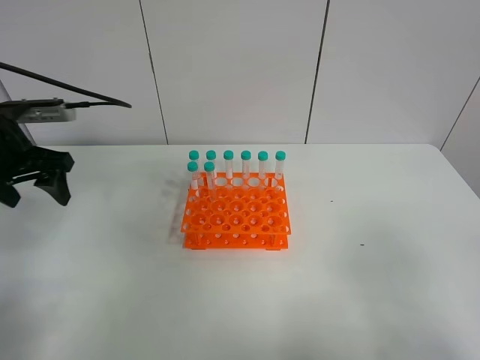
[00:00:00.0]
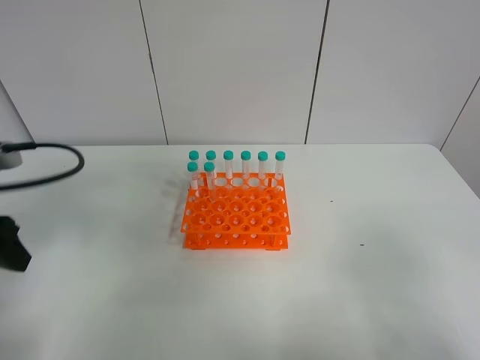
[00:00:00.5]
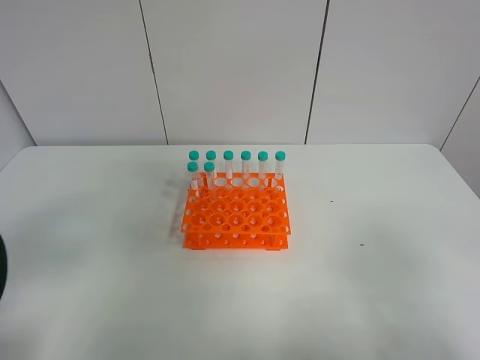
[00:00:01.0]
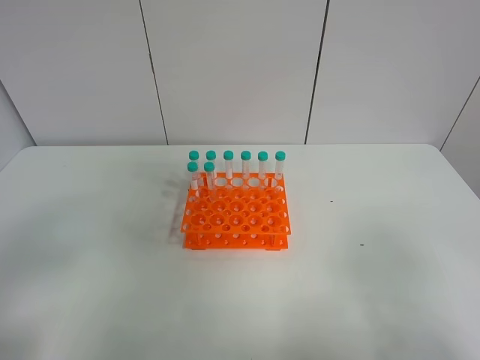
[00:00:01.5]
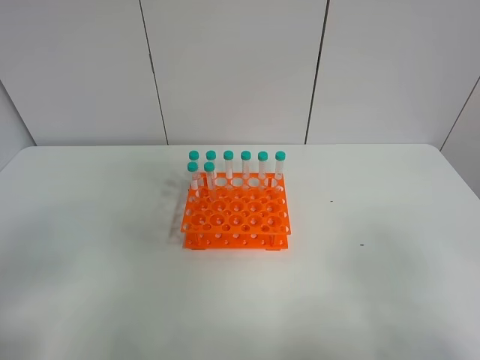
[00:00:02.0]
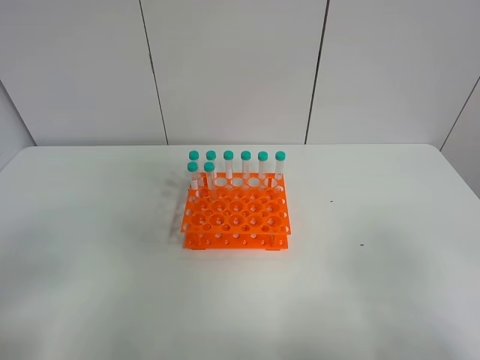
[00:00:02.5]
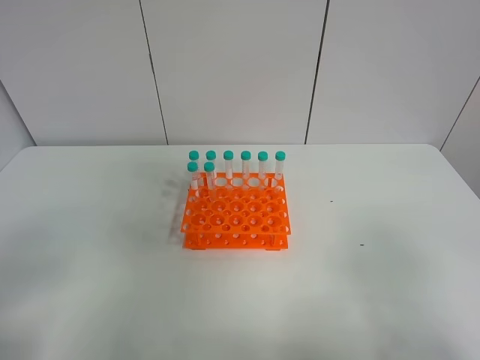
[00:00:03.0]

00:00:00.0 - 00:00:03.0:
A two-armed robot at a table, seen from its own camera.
Task of the whole recording: Put the test tube on the table back onto the test tube rack.
00:00:00.0 - 00:00:01.5: The left gripper is displaced backward by approximately 25 cm.
